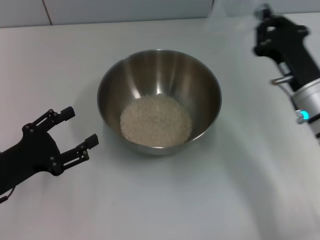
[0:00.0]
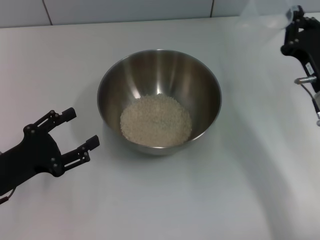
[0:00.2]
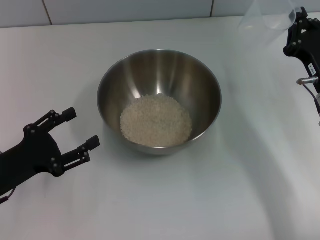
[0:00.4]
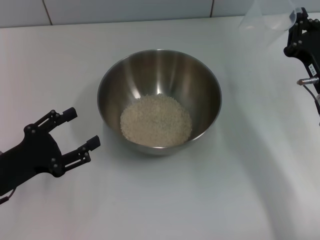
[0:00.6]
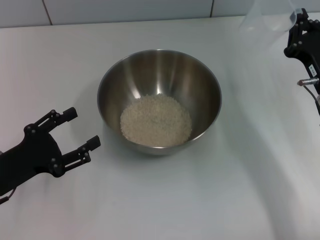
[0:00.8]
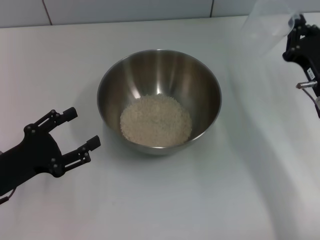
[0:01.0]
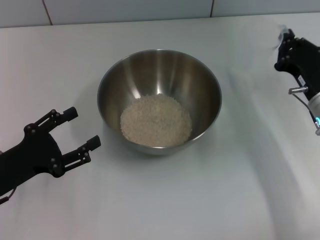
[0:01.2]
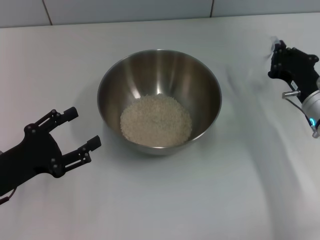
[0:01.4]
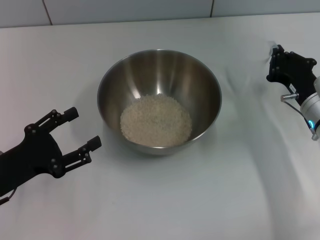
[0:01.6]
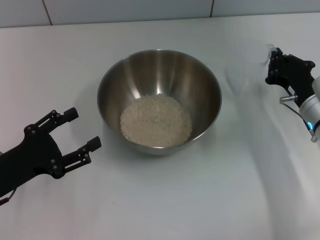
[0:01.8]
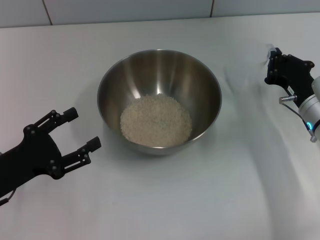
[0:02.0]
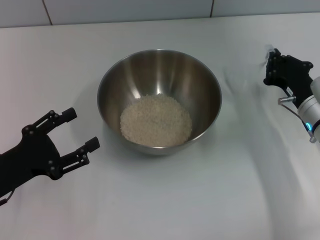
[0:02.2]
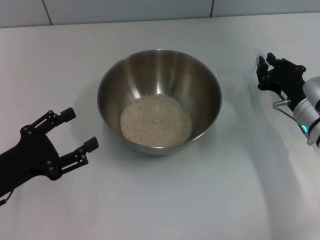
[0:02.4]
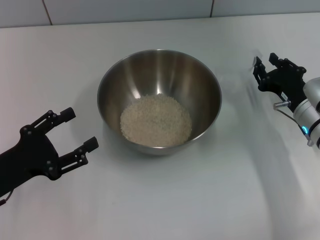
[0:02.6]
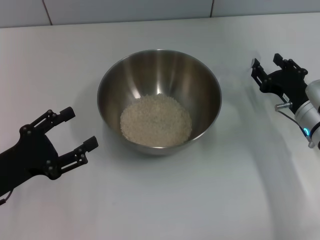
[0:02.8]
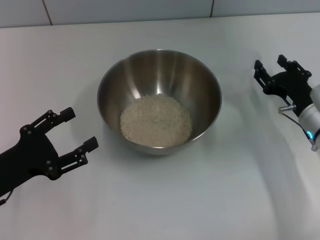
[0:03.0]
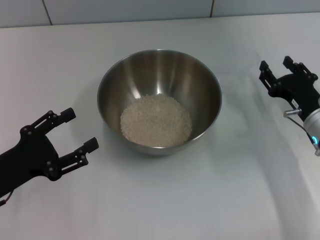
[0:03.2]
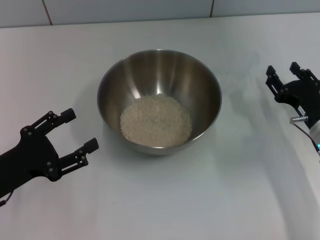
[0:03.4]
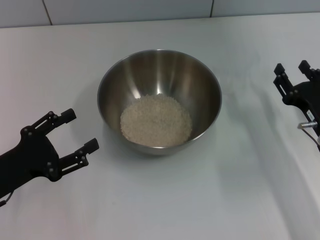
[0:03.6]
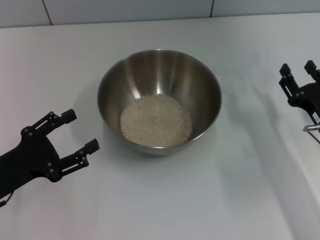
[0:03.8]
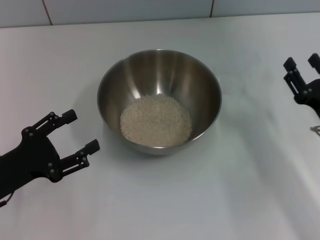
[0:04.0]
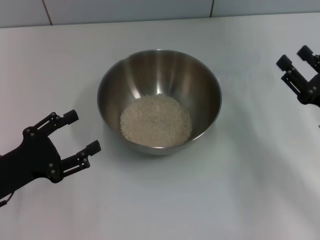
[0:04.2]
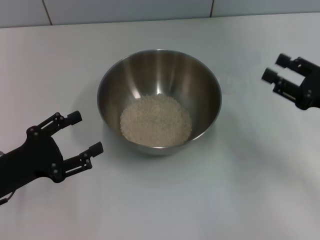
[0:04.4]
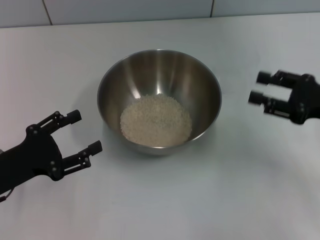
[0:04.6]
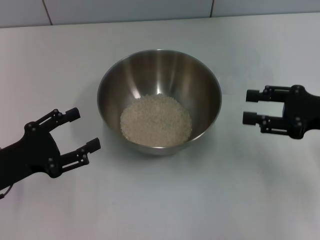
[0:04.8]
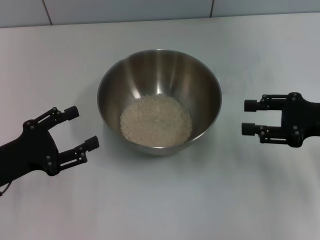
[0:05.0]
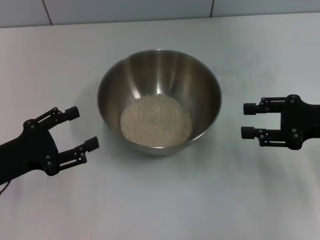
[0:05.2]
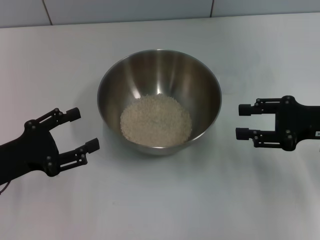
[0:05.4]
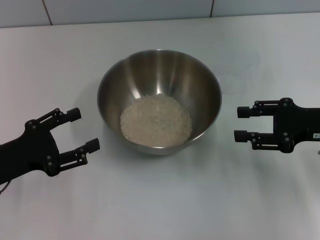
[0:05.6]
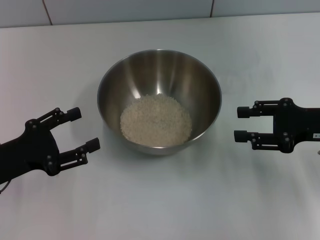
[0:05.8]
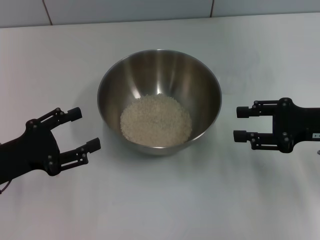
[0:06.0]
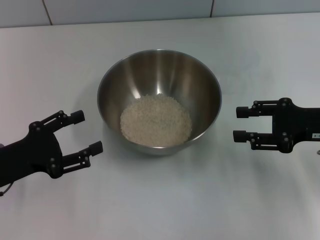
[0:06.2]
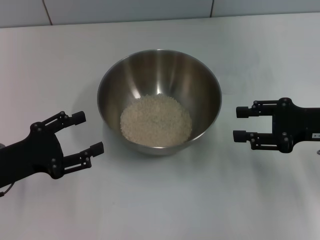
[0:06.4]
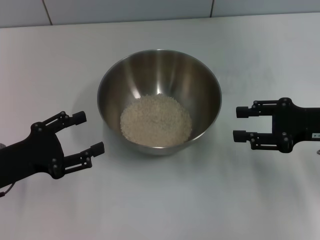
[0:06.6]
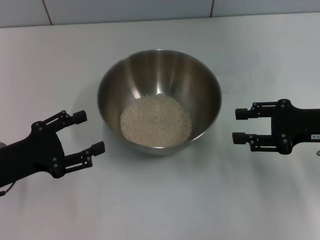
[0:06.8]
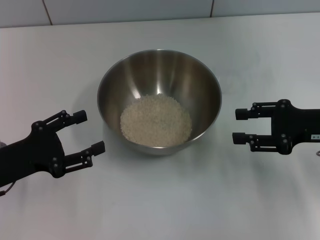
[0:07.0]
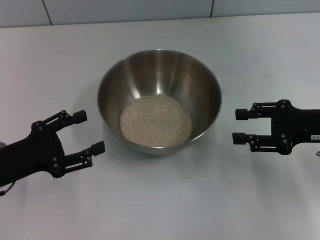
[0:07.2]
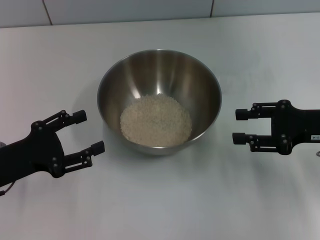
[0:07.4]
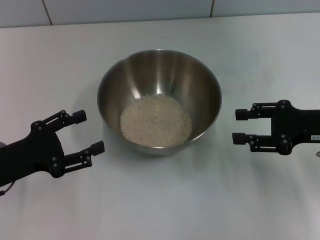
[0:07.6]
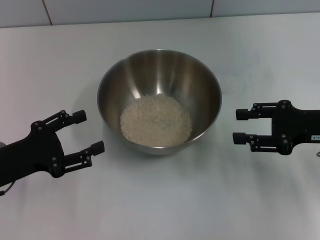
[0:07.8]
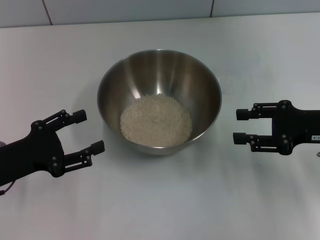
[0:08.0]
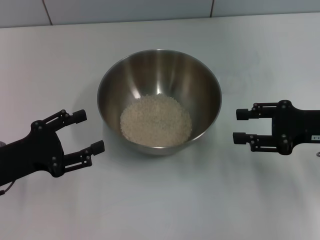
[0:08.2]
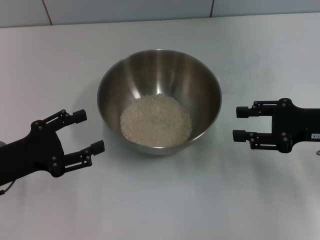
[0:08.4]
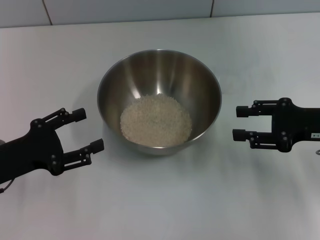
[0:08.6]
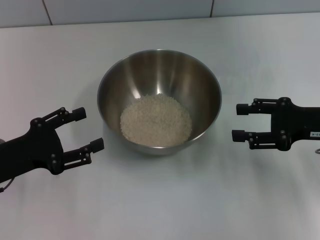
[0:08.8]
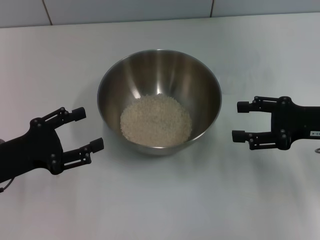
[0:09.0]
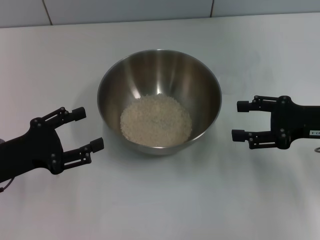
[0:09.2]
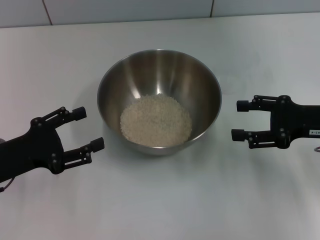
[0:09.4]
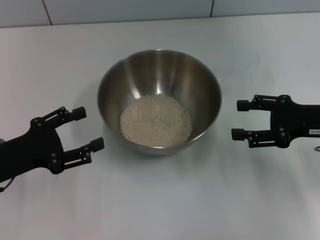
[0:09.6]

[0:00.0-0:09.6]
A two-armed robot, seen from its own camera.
Task of the whole recording: Place the bowl in the middle of the table with one hand and pour the rice from the grain cup into it with the other hand.
Step, 0:00.0 to 0:03.2: Place the cup on the table with the right gripper.
0:00.0 to 0:01.6: The right gripper changes place by roughly 5 cm.
0:01.6 to 0:03.2: The right gripper opens its fingers.
0:03.2 to 0:04.8: The right gripper shifts approximately 10 cm upward.
0:04.8 to 0:06.4: There are only small adjustments of the grippers.
0:06.4 to 0:09.6: Both grippers stay about where they are.
